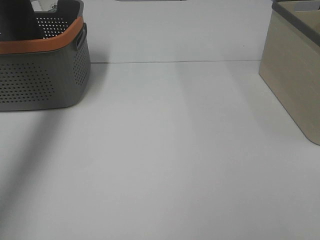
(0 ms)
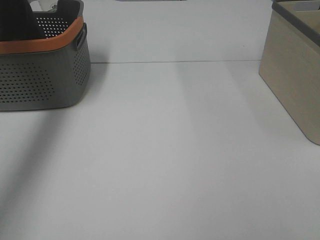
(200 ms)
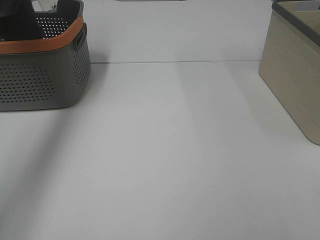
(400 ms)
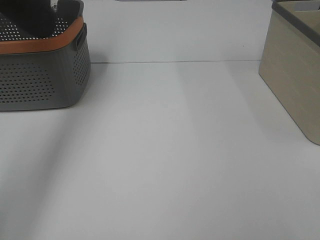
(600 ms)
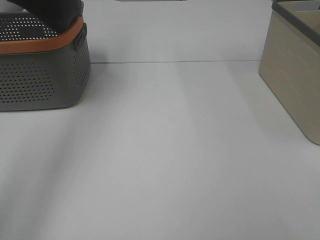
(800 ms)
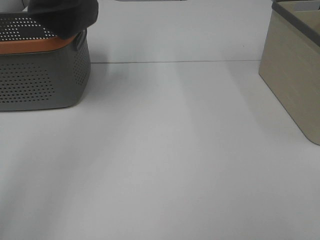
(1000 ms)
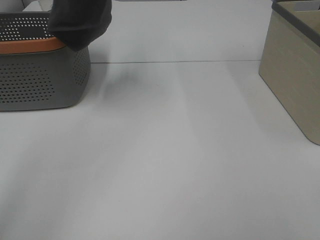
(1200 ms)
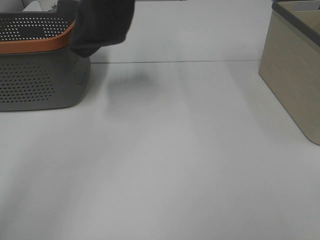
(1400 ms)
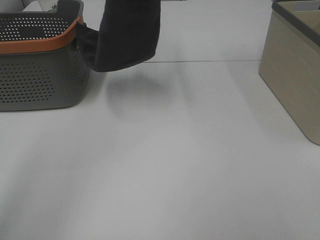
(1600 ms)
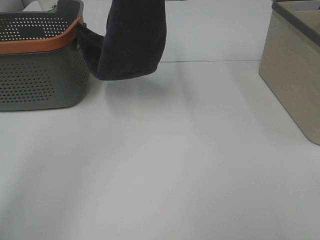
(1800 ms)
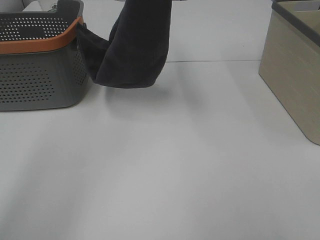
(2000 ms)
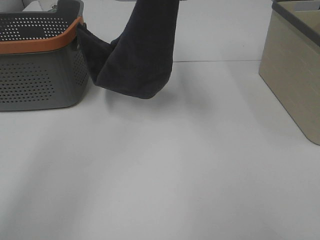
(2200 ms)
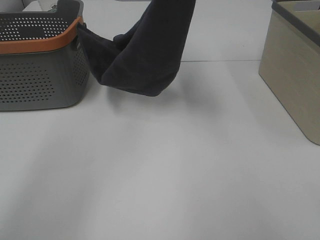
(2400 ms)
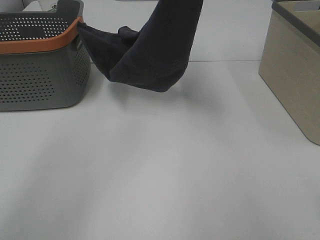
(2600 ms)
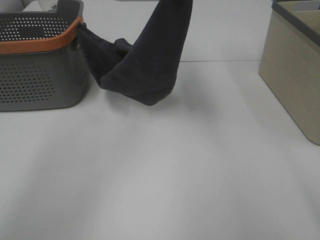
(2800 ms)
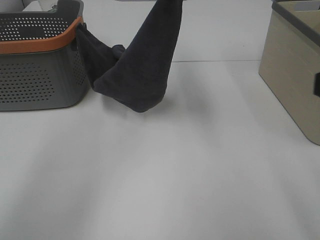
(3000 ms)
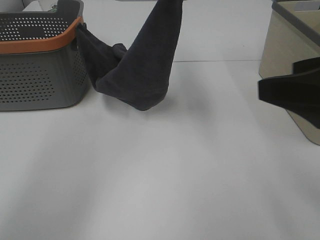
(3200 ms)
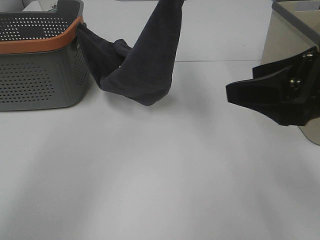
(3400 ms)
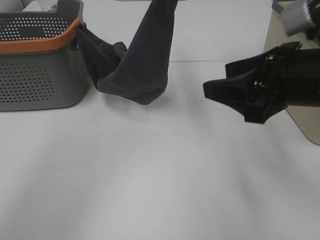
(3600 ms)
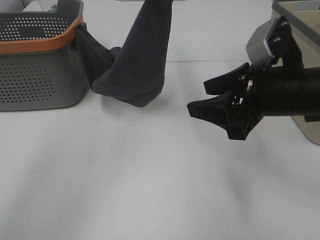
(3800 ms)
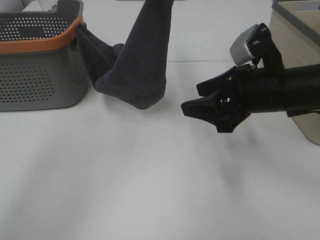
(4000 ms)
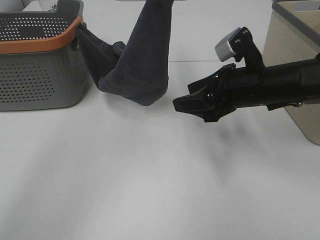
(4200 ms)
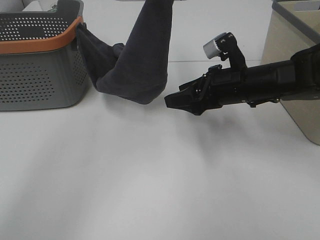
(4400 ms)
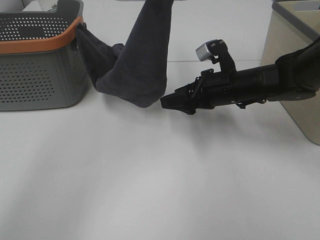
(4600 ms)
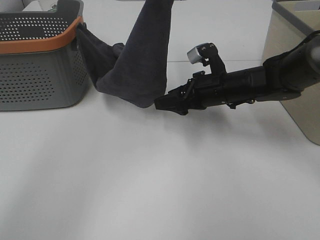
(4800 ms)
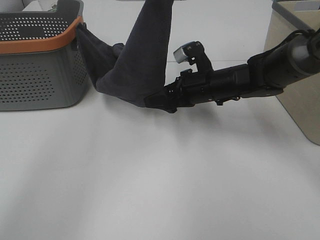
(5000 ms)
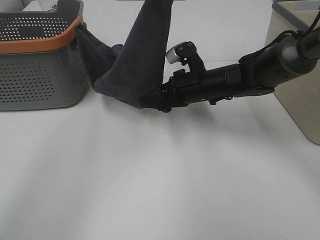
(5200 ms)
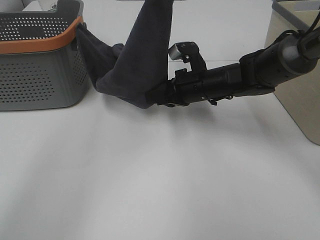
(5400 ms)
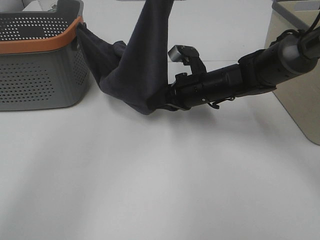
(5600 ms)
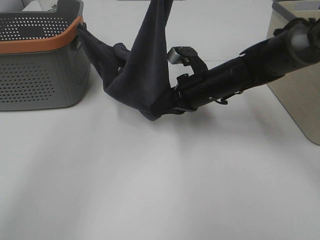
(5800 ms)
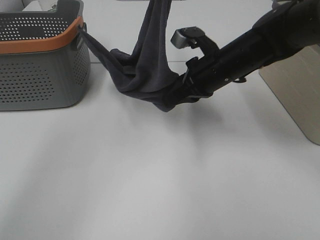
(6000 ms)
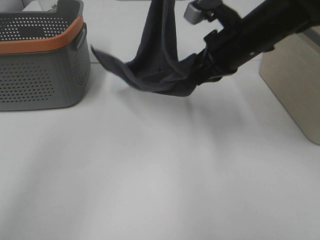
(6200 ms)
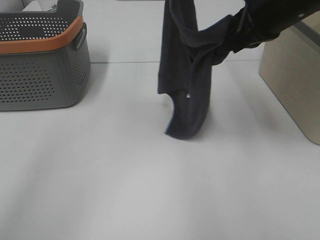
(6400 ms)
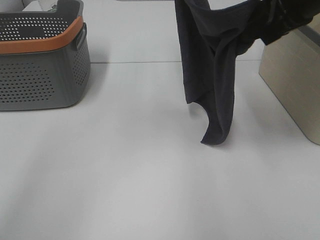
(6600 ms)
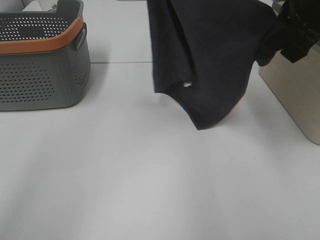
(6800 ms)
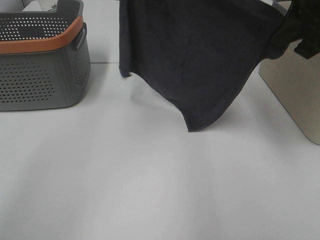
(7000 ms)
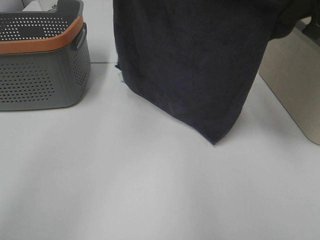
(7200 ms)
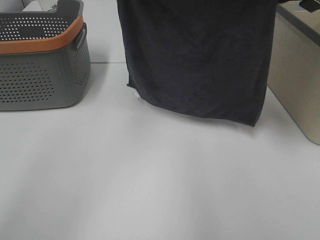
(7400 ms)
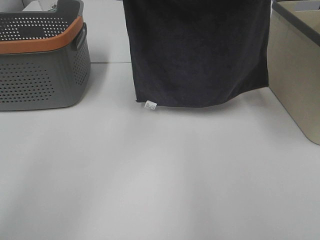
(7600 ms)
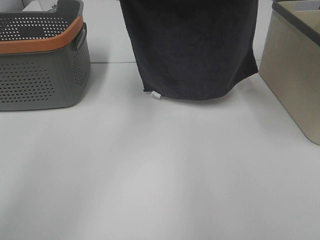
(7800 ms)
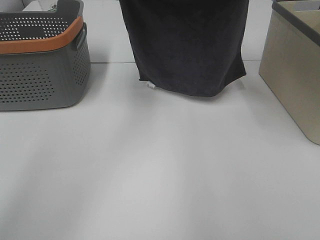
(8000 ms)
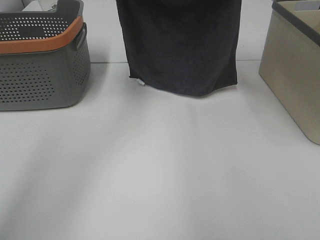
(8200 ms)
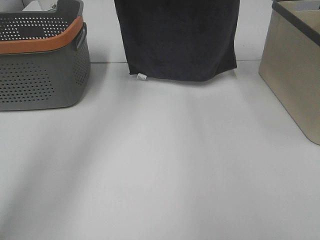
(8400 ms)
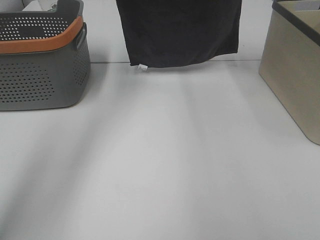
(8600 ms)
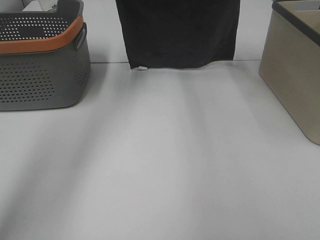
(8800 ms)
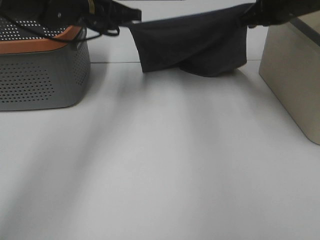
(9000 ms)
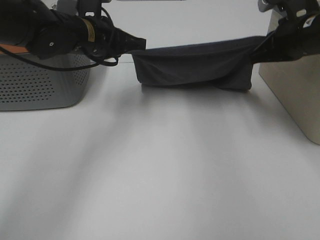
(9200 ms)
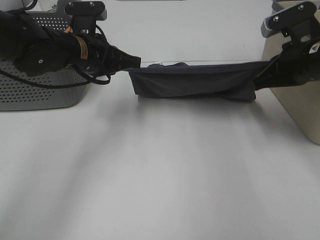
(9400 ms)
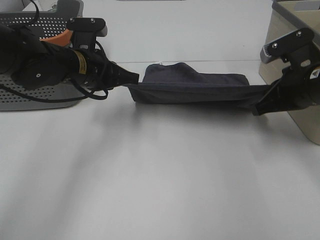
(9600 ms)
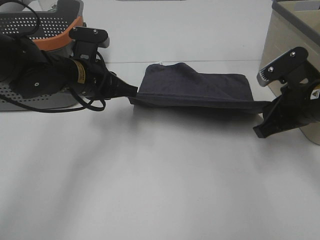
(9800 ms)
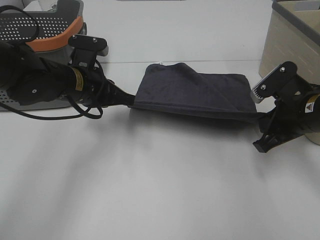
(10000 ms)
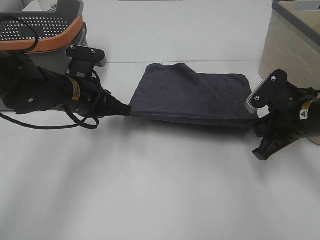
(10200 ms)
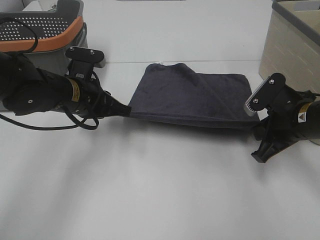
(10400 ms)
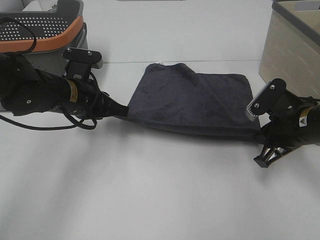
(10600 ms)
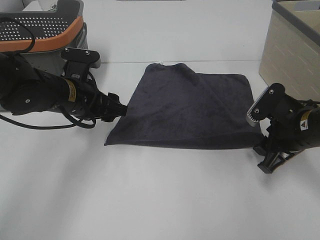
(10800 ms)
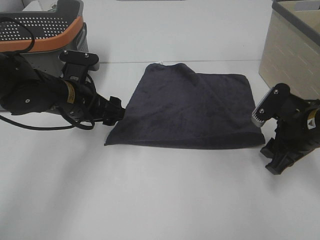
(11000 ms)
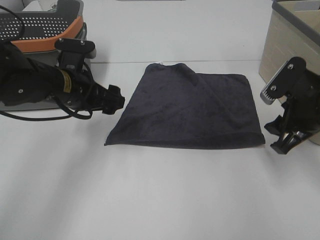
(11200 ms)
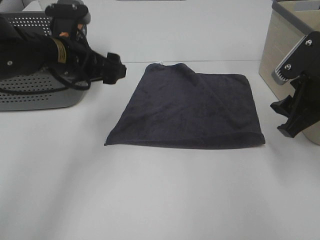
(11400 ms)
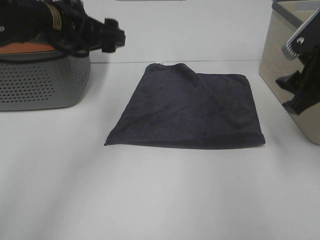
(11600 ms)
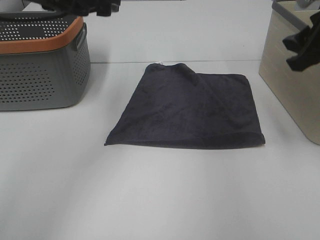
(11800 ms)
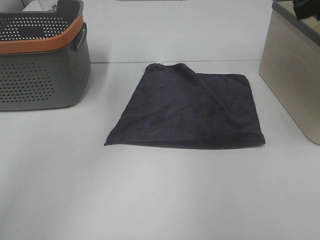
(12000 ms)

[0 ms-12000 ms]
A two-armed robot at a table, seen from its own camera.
Task of the whole recording: Remove the towel and place it.
Step, 1400 ms to 4600 ms: Right hand: grab a corner of the grey towel and straighten it.
Step, 4800 ms to 7000 ms: Left hand: spread the grey towel flat on the table.
Step, 4800 ms to 7000 ms: Right hand: spread the grey towel flat on the table.
0 ms to 1600 ms: The left gripper shifts roughly 20 cm to the right.
1600 ms to 3000 ms: The left gripper goes some 10 cm downward and to the right. The right gripper moves forward, approximately 10 cm.
3000 ms to 4400 ms: The right gripper shifts about 30 cm forward and downward.
4400 ms to 6000 ms: The right gripper ends up some 5 cm from where it was, and closes.
6000 ms to 7600 ms: The right gripper shifts about 25 cm upward and to the right. Meanwhile the left gripper shifts by some 5 cm.
7600 ms to 9000 ms: The left gripper is displaced downward by roughly 15 cm, while the right gripper moves downward and forward, roughly 15 cm.
9000 ms to 10400 ms: The right gripper goes roughly 20 cm downward and backward. Meanwhile the left gripper goes roughly 15 cm backward and downward.
10400 ms to 12000 ms: Both grippers travel together upward, approximately 20 cm. The right gripper opens up; the left gripper opens its fingers.

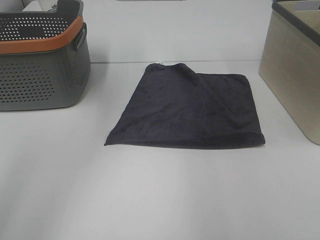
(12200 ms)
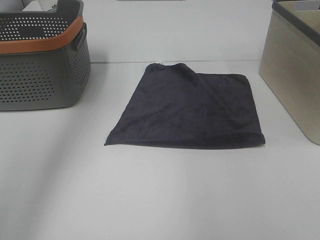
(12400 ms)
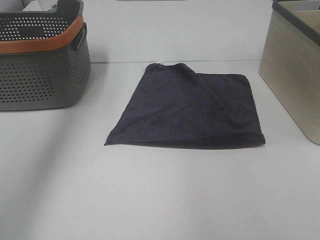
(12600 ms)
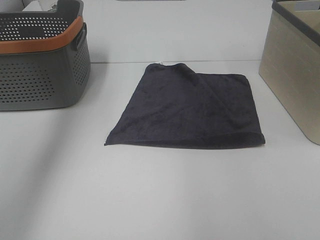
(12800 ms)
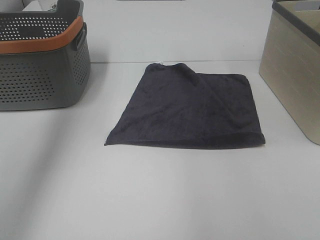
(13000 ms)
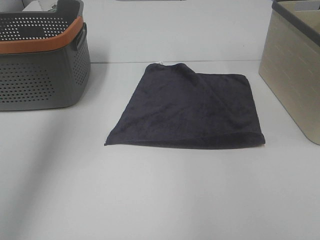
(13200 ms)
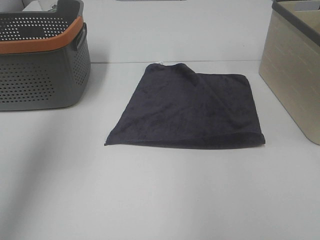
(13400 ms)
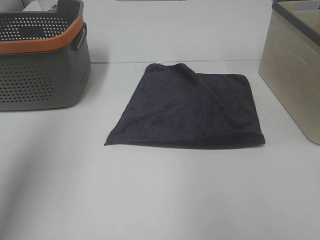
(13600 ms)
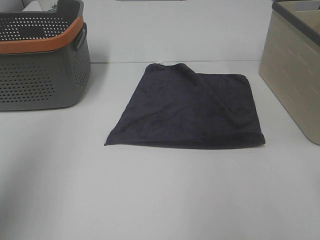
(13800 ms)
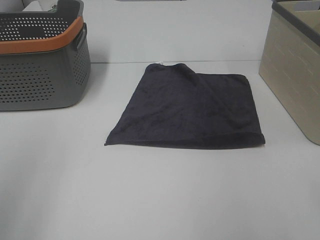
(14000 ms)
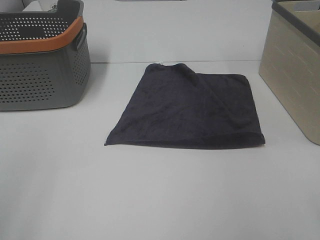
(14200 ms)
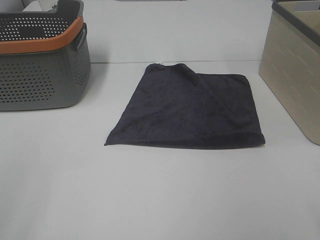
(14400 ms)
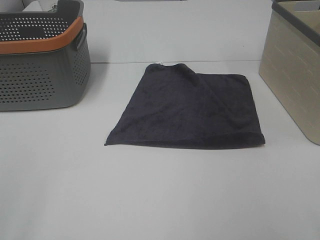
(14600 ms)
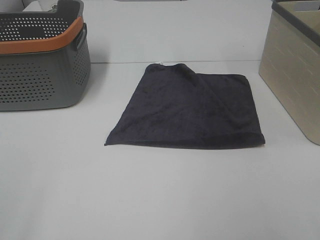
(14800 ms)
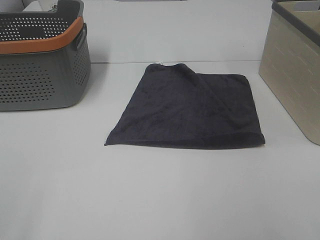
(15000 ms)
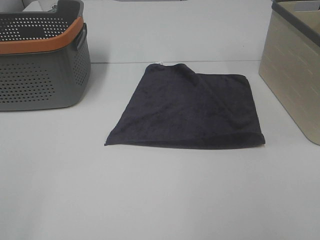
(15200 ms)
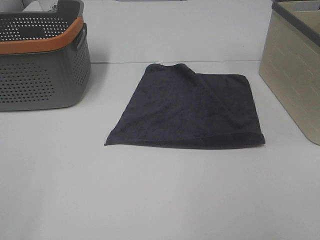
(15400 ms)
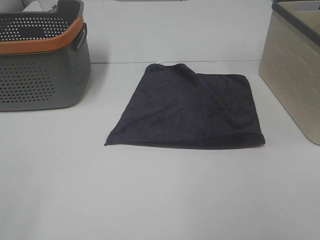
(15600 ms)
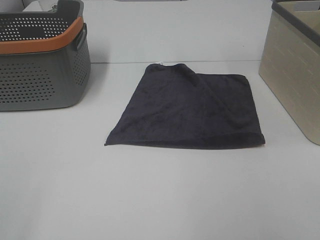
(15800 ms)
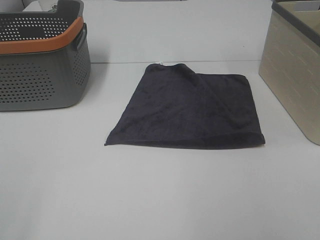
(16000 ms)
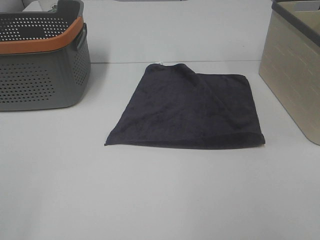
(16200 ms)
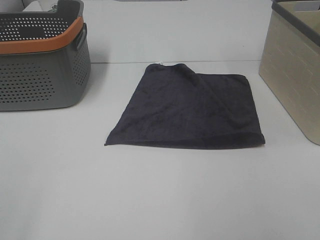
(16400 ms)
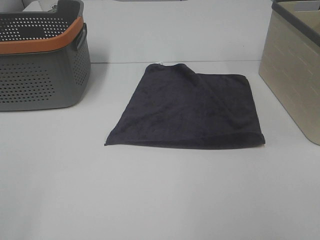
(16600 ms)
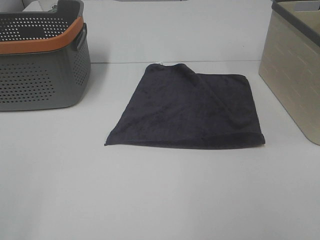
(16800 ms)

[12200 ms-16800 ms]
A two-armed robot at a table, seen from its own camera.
Task of the whole recording: Remove the towel and place it.
12200 ms to 13800 ms: The left gripper shifts about 25 cm backward and to the left, while the right gripper is displaced backward by some 15 cm.
13800 ms to 15200 ms: The left gripper moves backward and downward, some 15 cm.

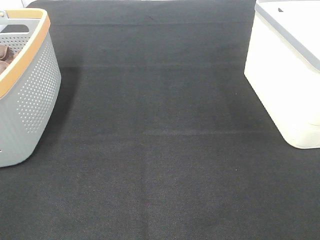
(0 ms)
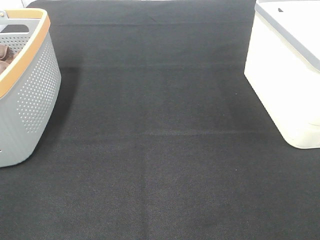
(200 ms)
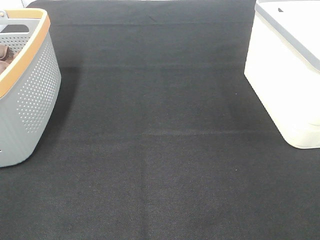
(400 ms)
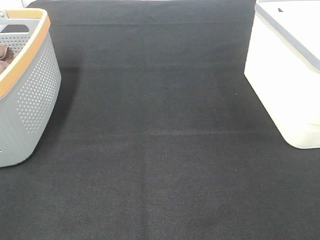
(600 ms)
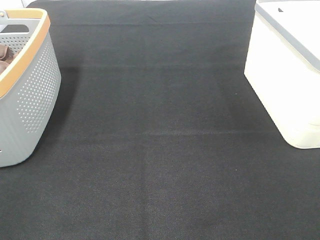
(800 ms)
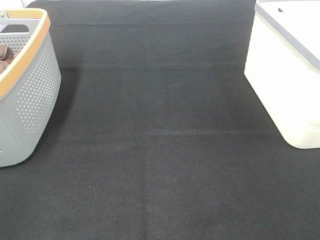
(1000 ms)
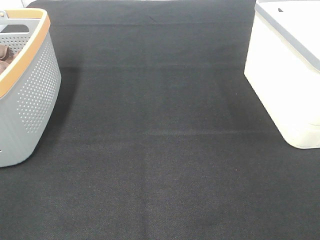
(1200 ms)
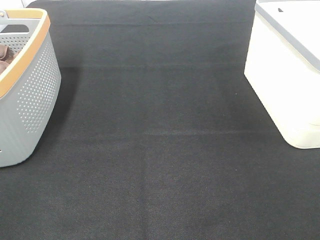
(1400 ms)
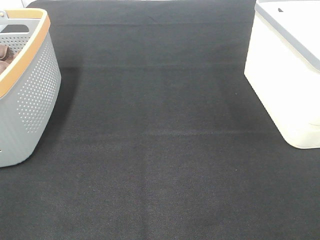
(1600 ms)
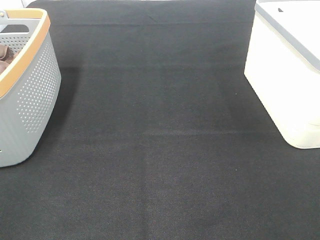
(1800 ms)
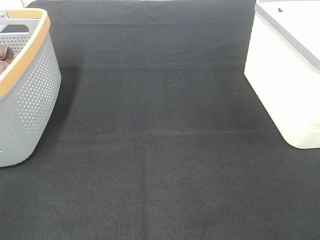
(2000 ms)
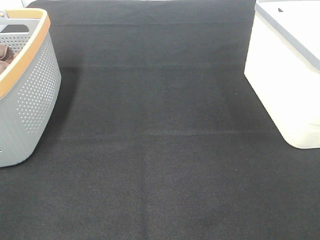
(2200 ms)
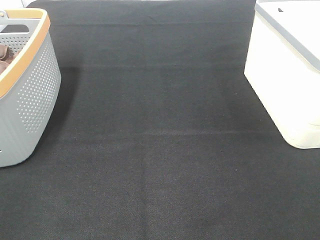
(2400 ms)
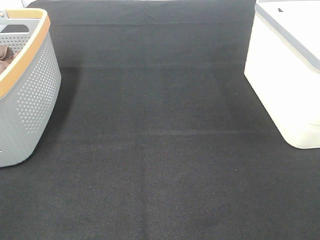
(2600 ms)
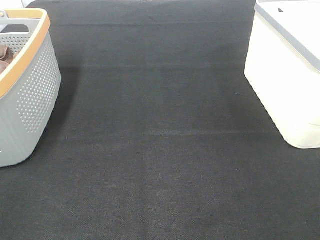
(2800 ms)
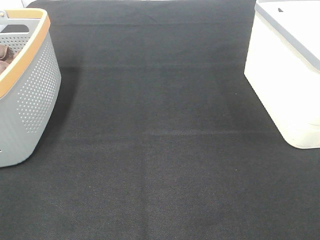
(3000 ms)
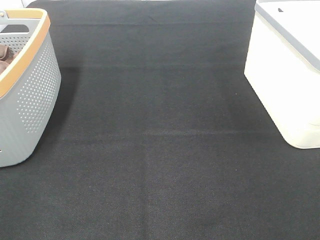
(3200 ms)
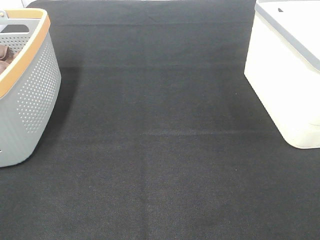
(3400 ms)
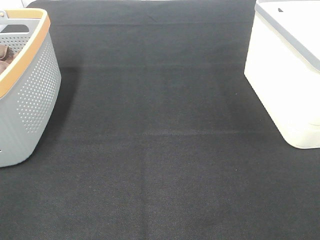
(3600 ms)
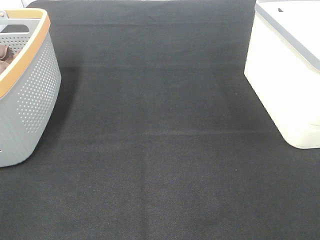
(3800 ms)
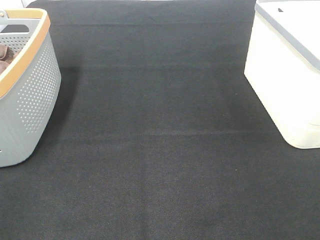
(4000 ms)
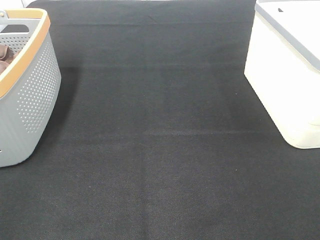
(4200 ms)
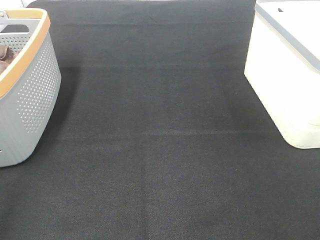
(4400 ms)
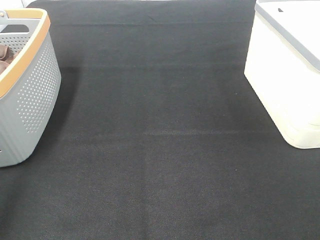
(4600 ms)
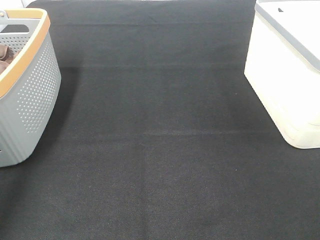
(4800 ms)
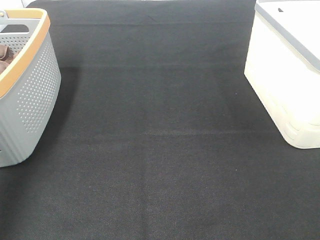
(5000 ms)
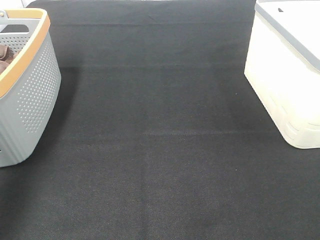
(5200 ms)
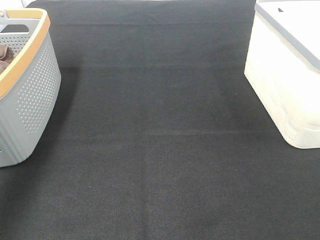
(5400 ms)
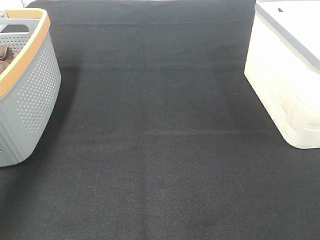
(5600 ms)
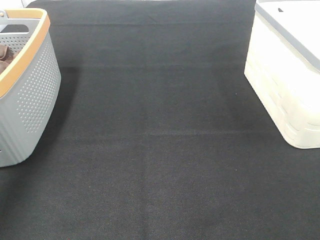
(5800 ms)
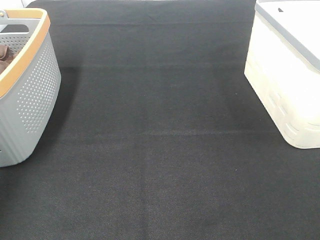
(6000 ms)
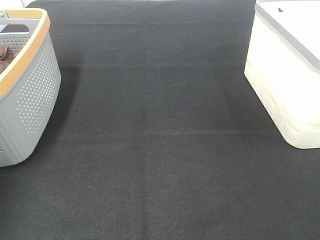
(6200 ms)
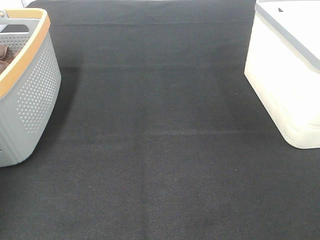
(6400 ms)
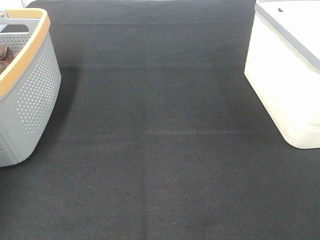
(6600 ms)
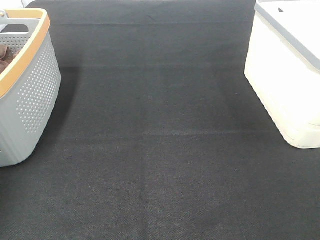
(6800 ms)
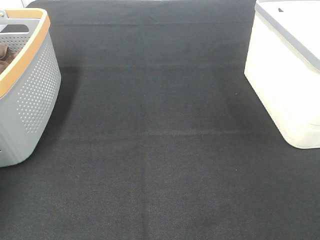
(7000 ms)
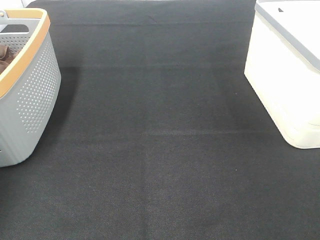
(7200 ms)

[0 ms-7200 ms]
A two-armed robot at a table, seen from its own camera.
Task of the whole recording: Remove the towel and place it.
0 ms to 2800 ms: Both grippers stay about where they are.
4400 ms to 5800 ms: The left gripper heads forward, covering roughly 35 cm.
5800 ms to 7200 ms: The left gripper heads downward and forward, covering some 15 cm.
